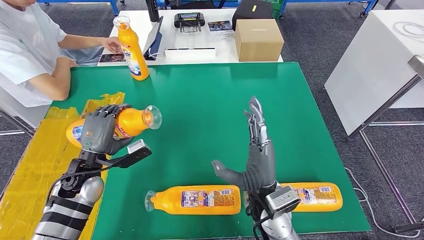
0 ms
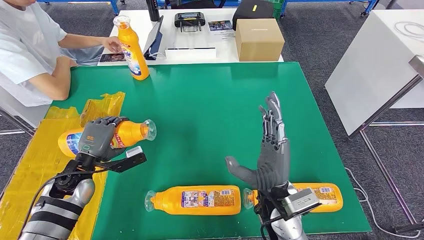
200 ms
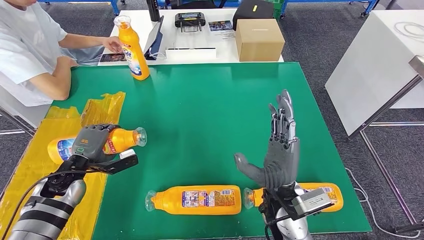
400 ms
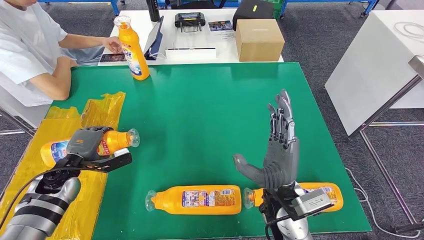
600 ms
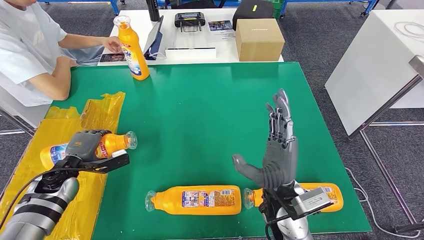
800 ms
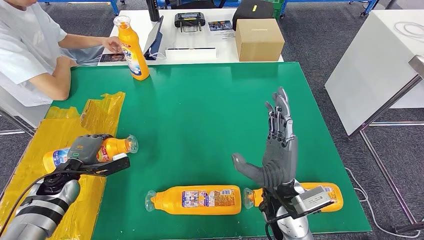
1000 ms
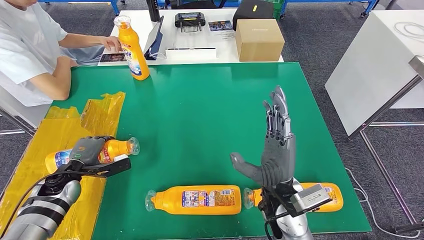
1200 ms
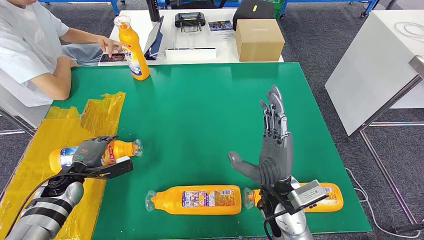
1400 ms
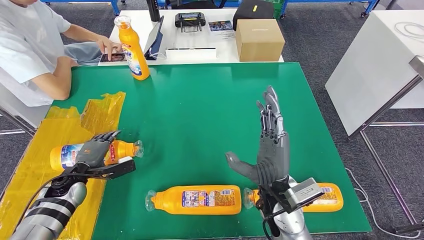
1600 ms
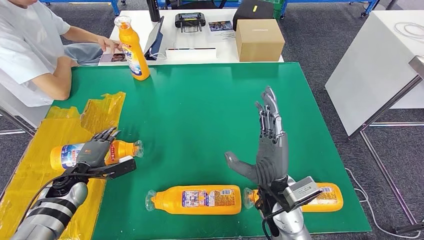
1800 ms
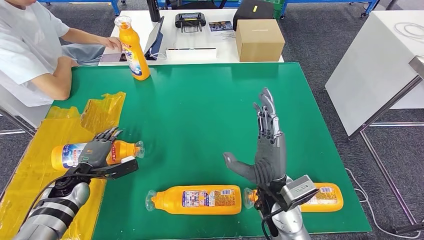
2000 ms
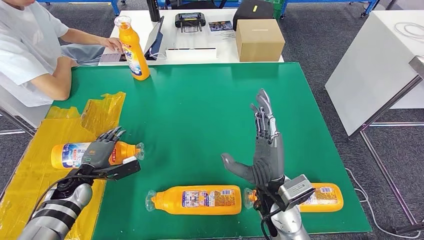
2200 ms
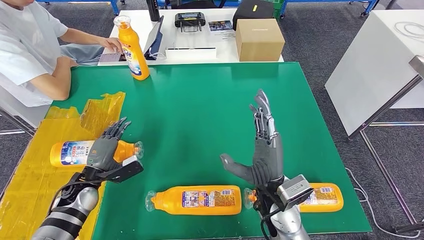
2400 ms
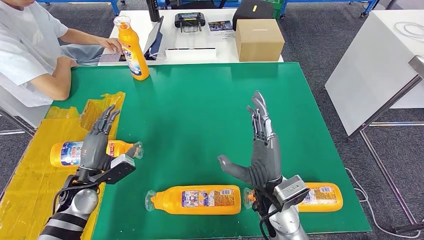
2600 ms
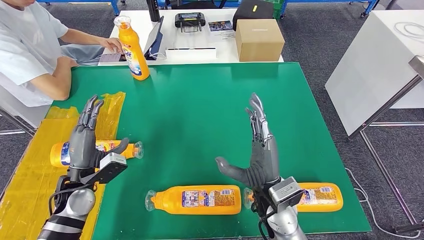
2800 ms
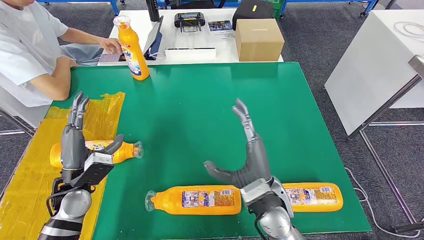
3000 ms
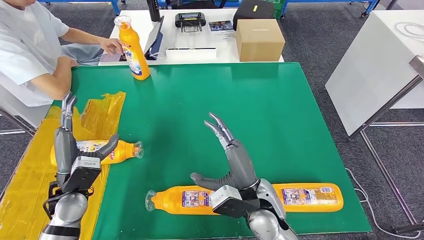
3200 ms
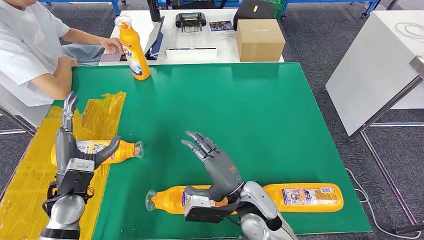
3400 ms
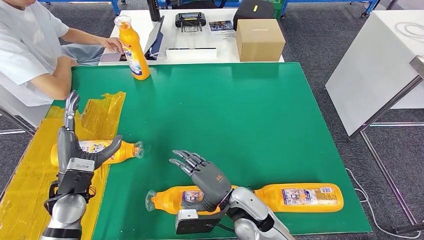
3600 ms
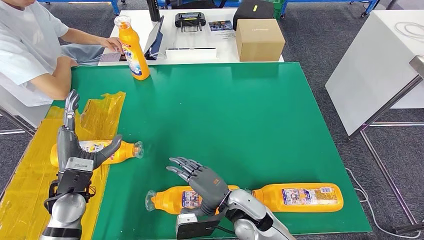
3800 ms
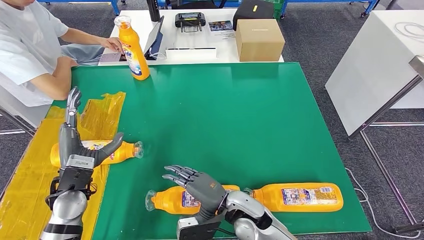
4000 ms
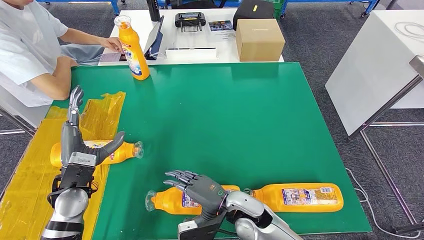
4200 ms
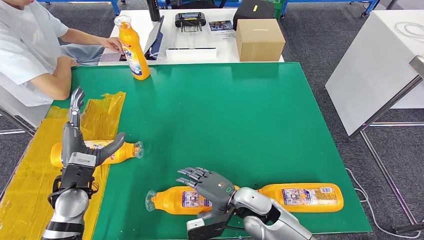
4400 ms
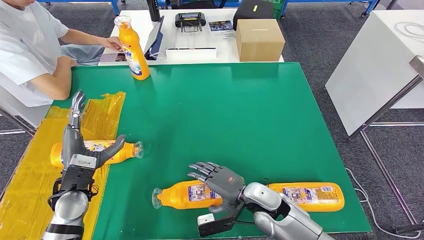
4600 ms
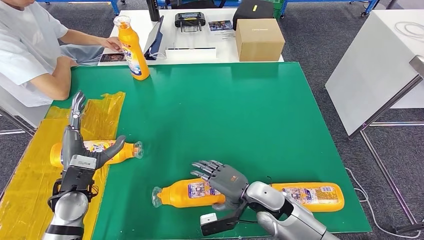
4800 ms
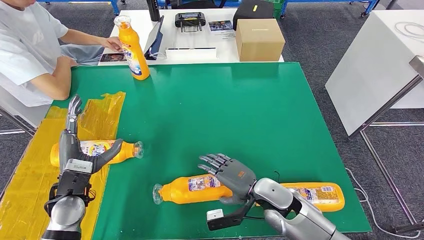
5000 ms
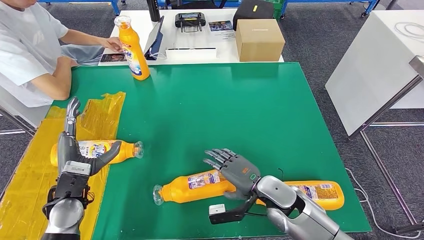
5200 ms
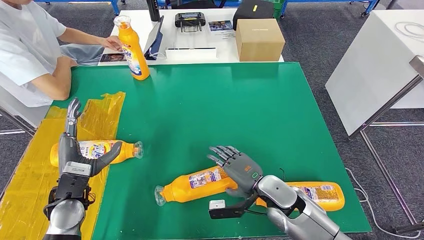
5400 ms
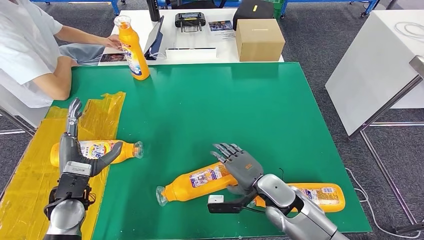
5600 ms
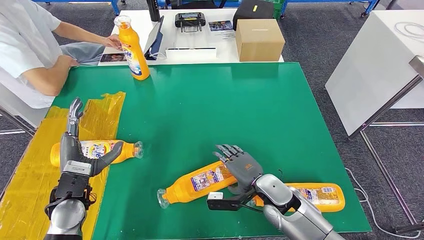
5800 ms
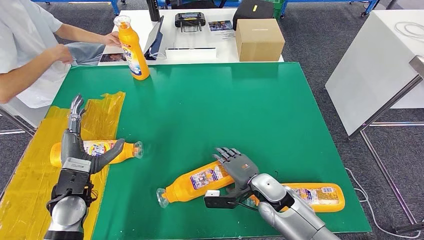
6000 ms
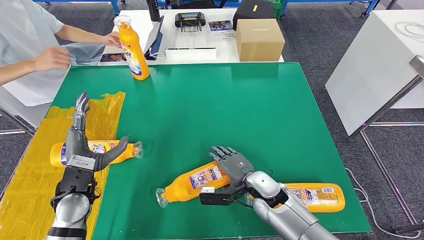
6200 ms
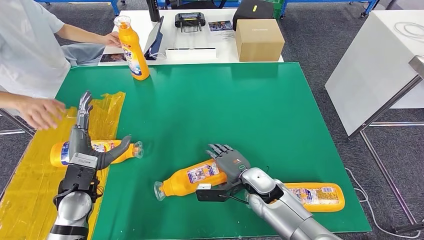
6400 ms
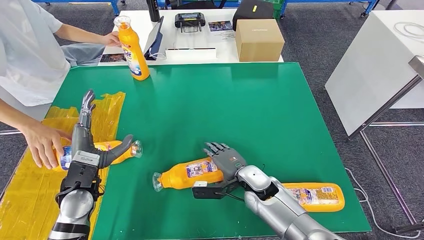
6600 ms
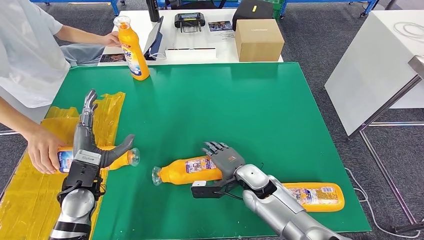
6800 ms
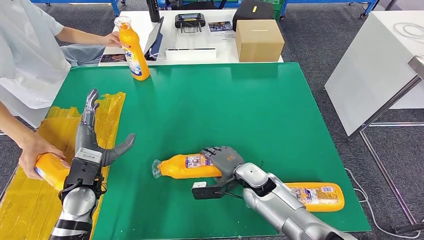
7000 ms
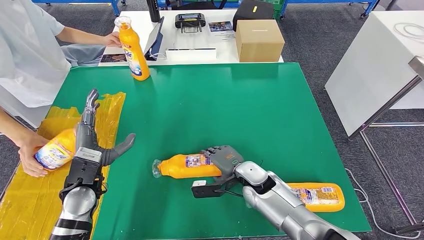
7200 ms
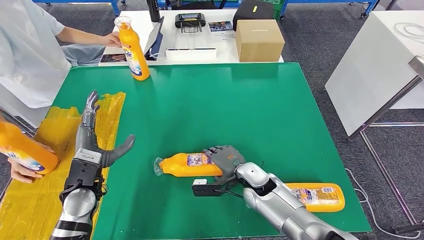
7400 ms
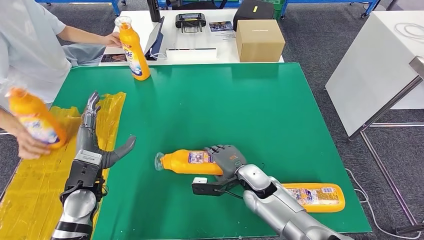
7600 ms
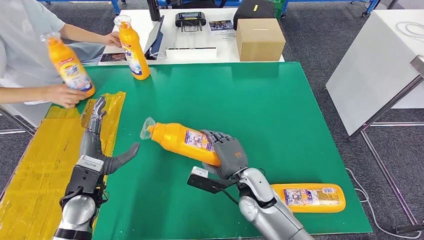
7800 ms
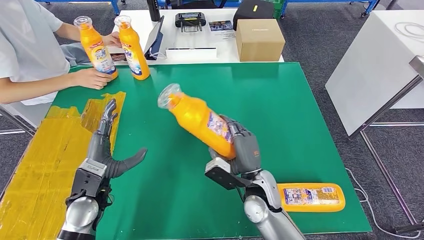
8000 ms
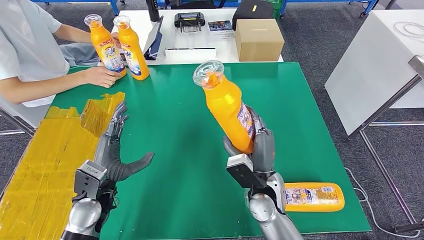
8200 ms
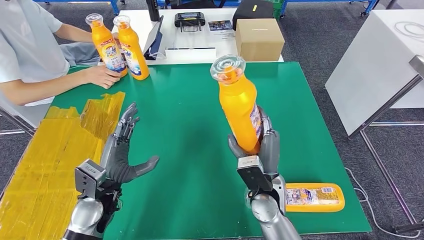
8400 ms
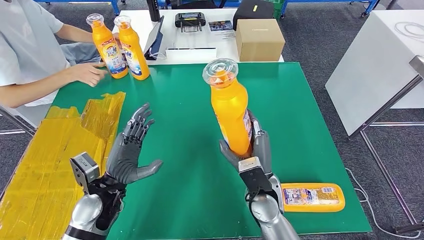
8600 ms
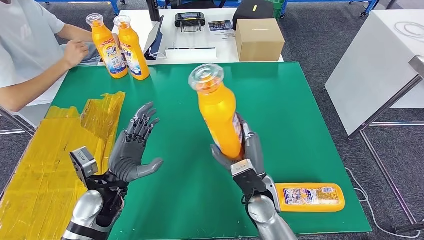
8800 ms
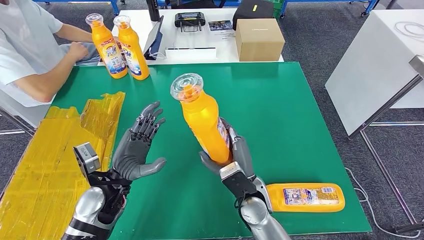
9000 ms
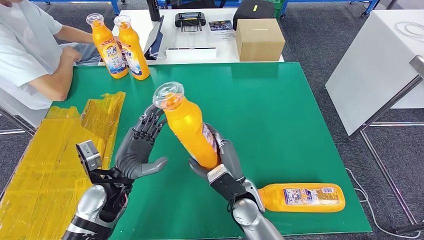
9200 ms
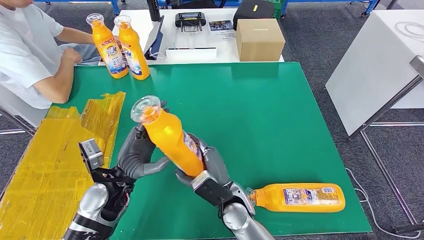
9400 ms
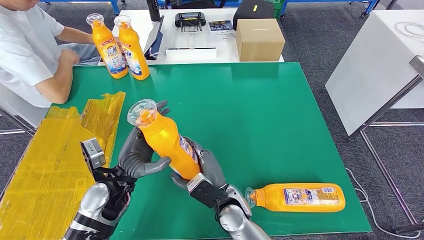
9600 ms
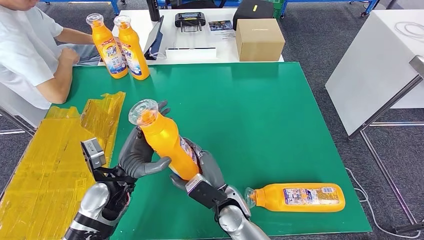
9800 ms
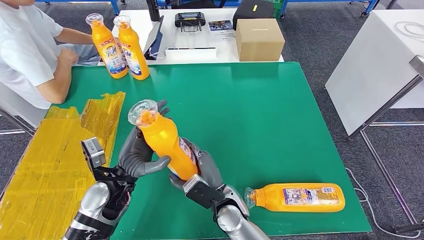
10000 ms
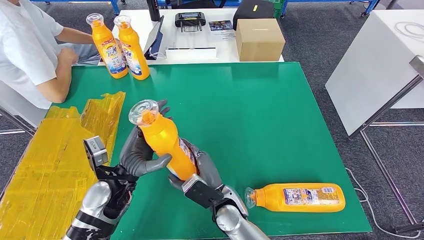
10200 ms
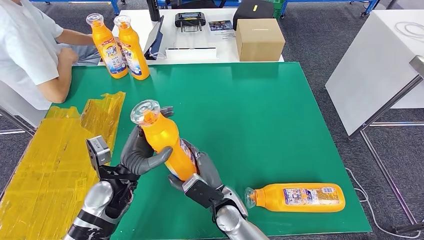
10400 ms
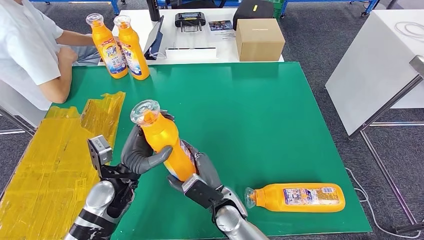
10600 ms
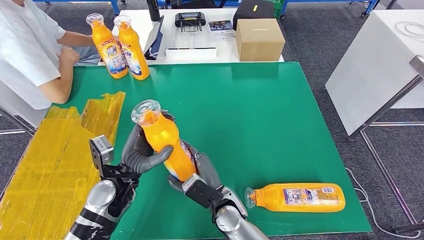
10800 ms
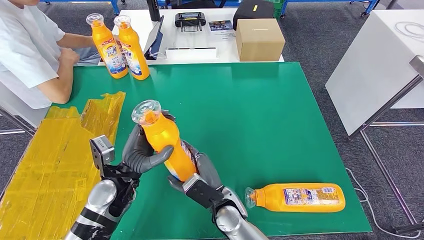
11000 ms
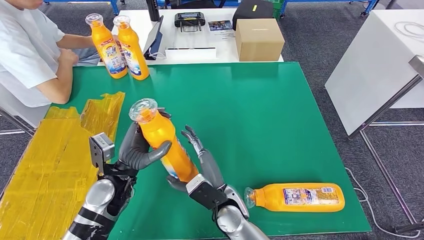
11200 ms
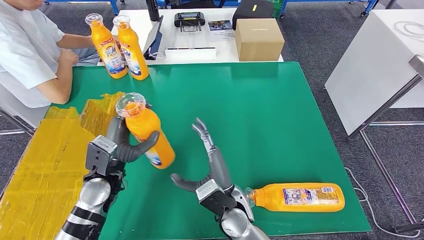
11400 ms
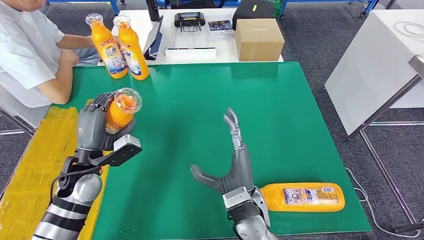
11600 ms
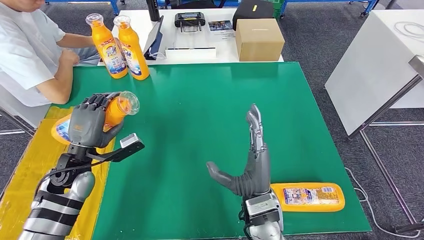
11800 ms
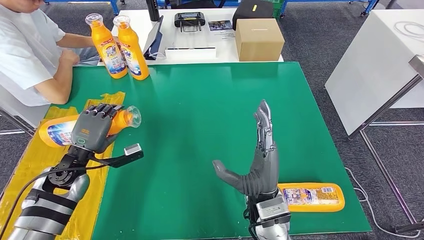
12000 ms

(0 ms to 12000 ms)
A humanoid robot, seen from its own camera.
Step, 0 ms - 2400 ms: Flip the fast-moving consumer goods bottle to the front side.
Step, 2600 ms - 8800 ms: Pick up the fast-moving consumer goods bottle from the table.
0 ms - 1600 ms: The left hand shifts some 10 cm downward and to the left.
1600 ms - 3000 ms: The left hand is displaced upward and to the right by some 10 cm.
3000 ms - 4400 ms: The right hand shifts some 10 cm downward.
4400 ms - 6000 ms: The right hand is displaced to the right by some 5 cm.
6000 ms - 7600 ms: The hands make only small movements.
9000 ms - 10400 ms: The right hand heads to the left, covering some 5 cm.

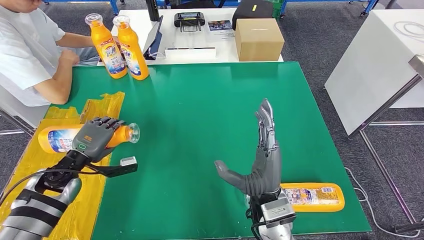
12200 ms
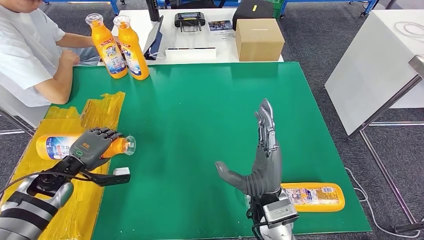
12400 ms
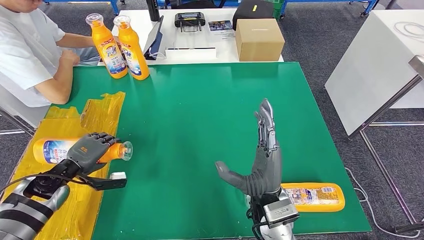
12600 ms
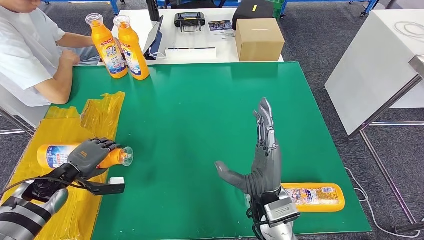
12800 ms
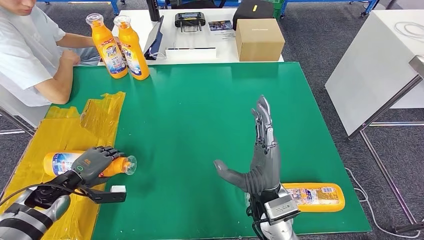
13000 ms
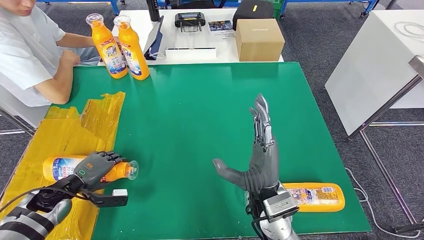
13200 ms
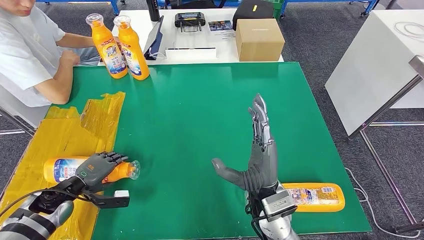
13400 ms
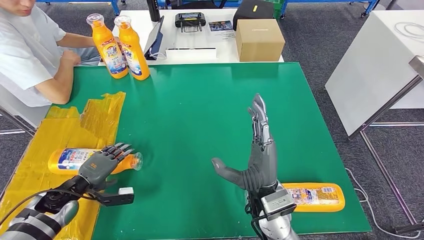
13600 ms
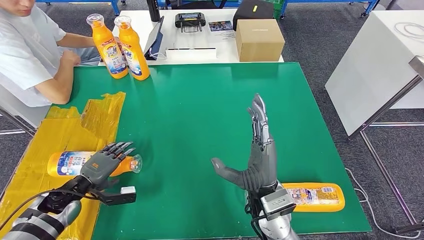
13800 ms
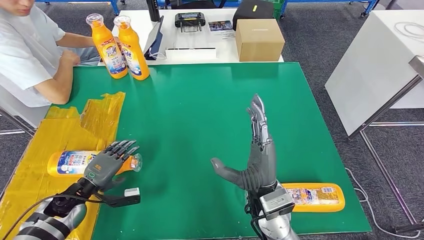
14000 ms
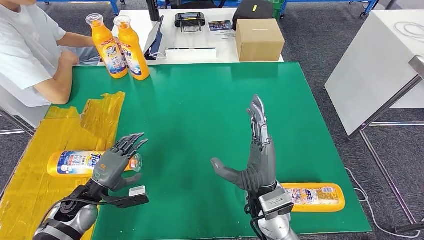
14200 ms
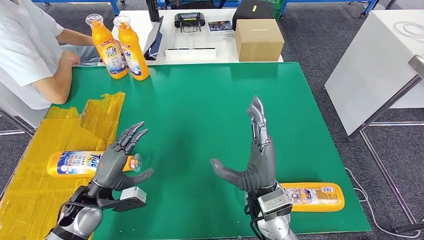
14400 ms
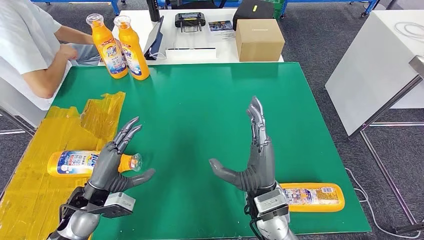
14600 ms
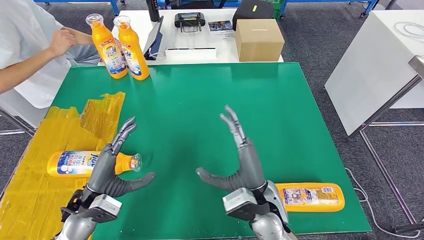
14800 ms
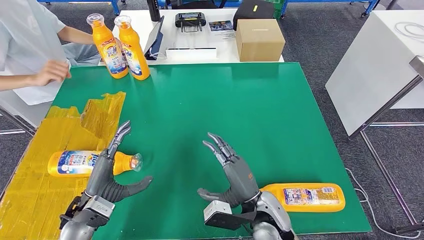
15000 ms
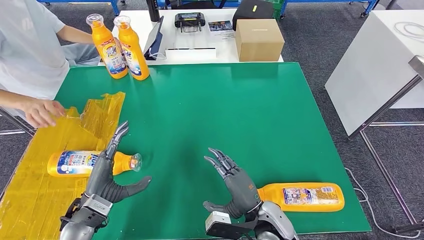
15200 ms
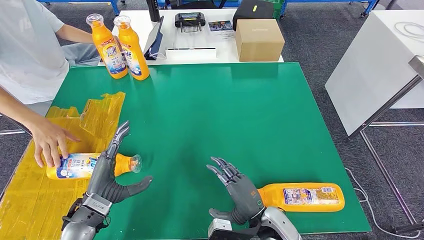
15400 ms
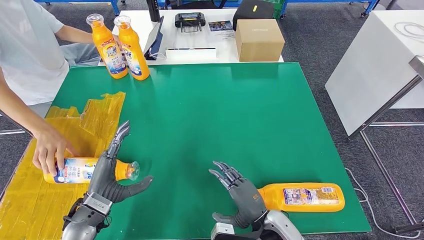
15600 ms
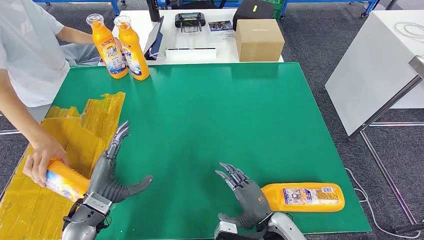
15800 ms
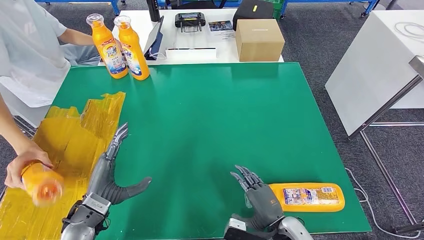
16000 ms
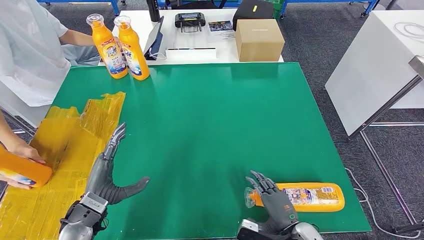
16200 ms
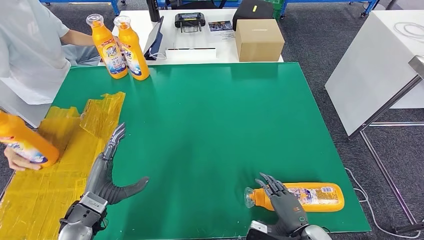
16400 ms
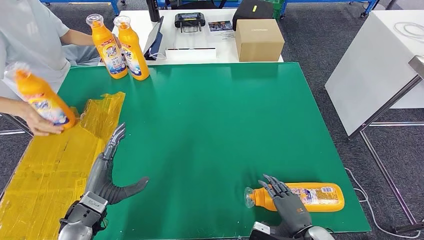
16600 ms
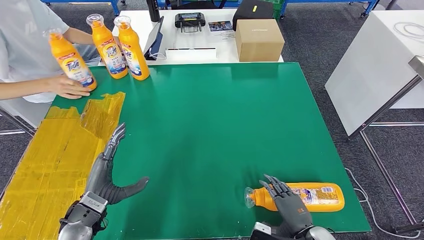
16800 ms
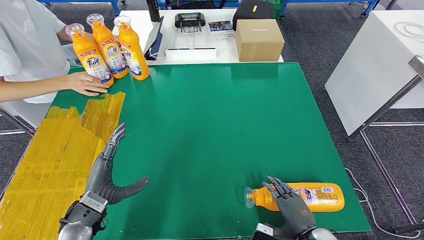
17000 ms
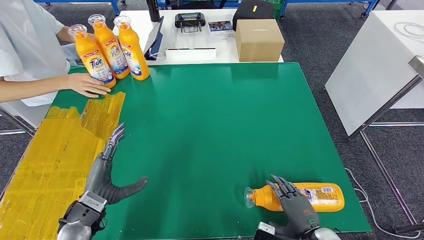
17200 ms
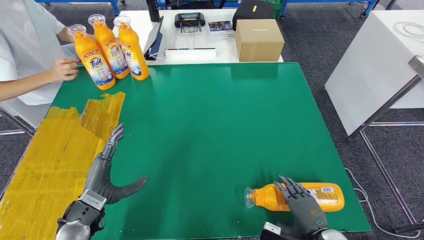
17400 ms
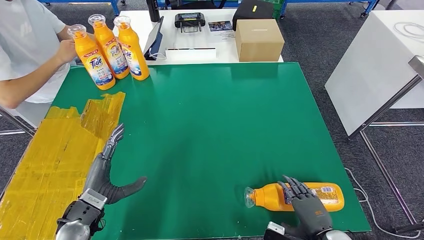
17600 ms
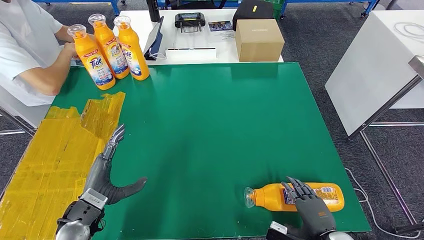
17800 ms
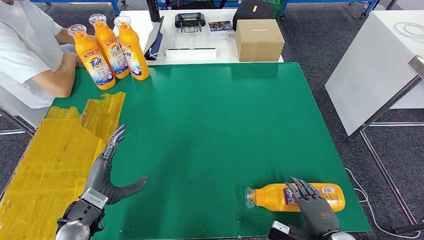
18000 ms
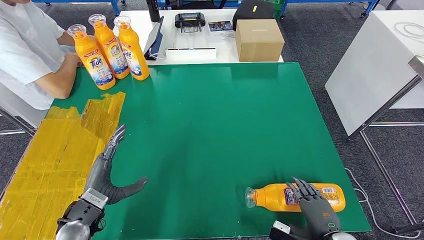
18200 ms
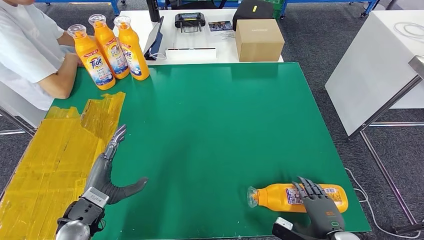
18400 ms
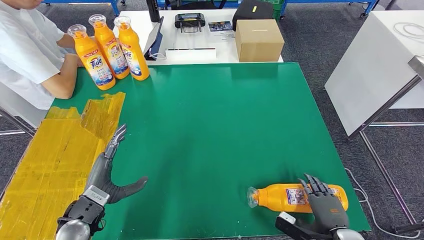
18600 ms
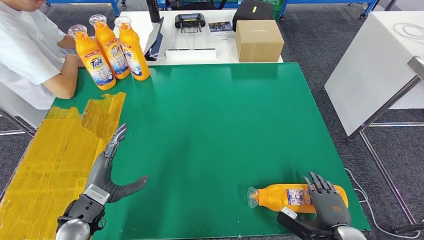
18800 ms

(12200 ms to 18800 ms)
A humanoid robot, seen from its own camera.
Step, 12200 ms - 14800 ms: Flip the fast-moving consumer goods bottle to the front side.
12200 ms - 13800 ms: The left hand travels downward by roughly 5 cm.
13800 ms - 15400 ms: The right hand moves downward, about 10 cm. The left hand moves to the right, backward and upward, about 15 cm.
15400 ms - 17200 ms: The right hand travels to the right by about 15 cm.
17200 ms - 18800 ms: The right hand moves to the right, some 5 cm.
